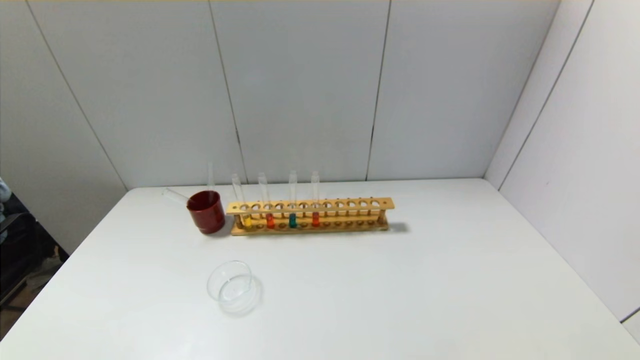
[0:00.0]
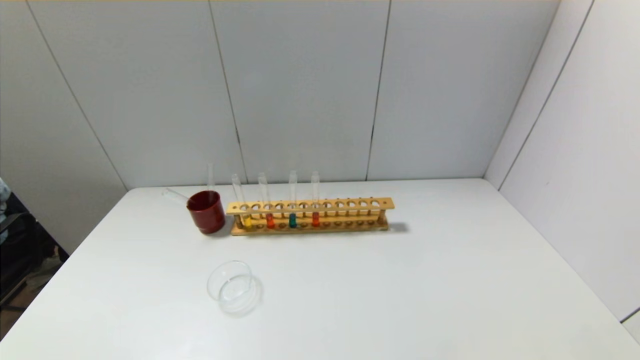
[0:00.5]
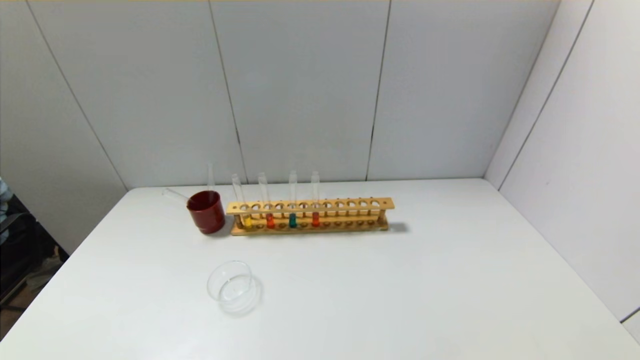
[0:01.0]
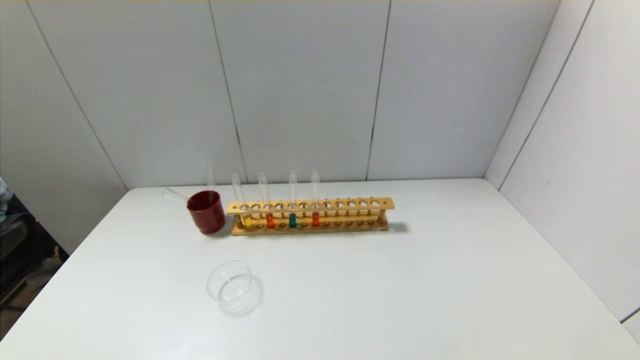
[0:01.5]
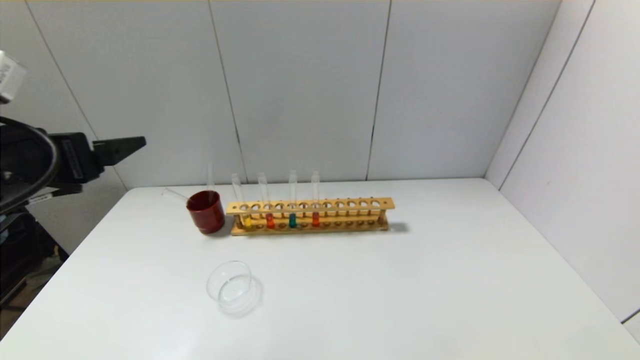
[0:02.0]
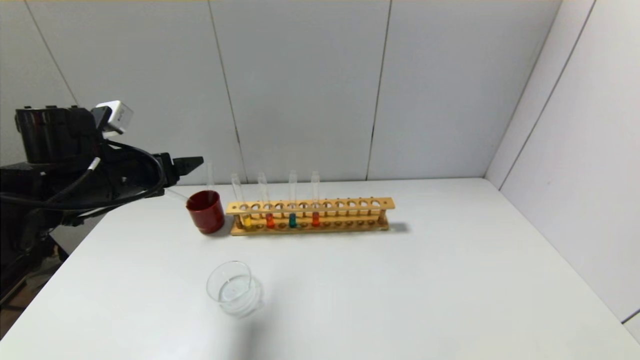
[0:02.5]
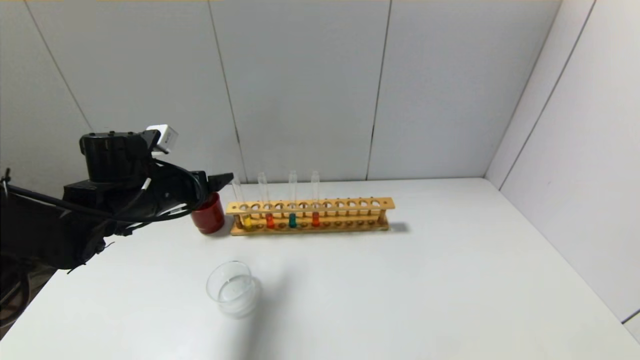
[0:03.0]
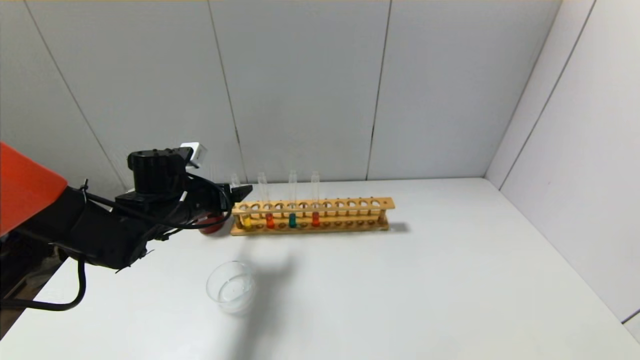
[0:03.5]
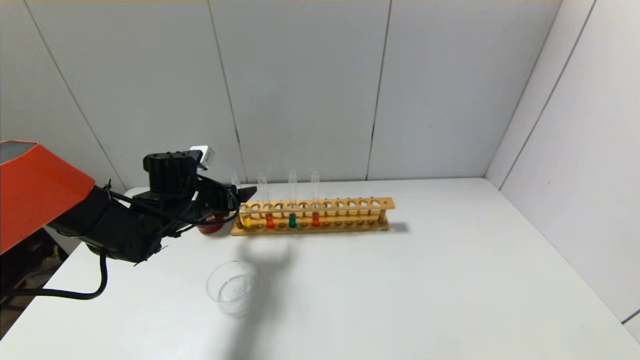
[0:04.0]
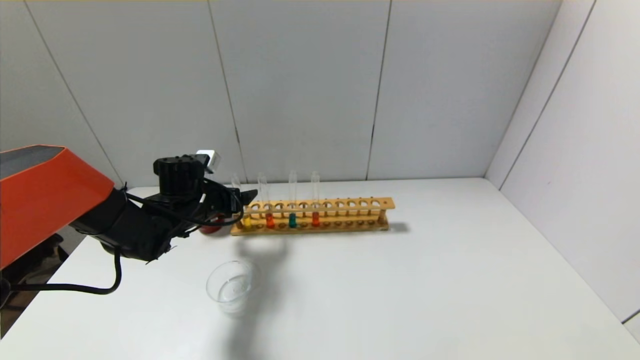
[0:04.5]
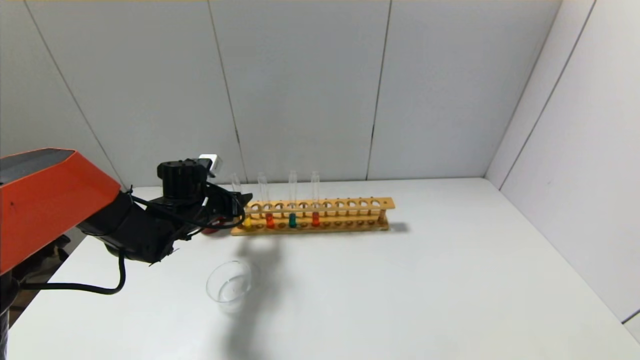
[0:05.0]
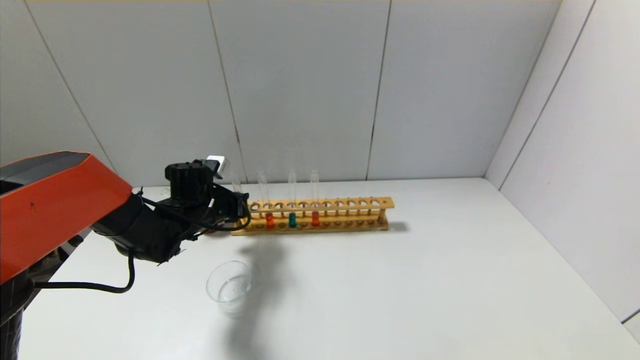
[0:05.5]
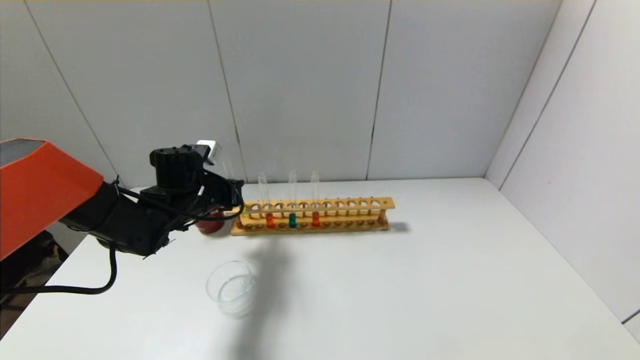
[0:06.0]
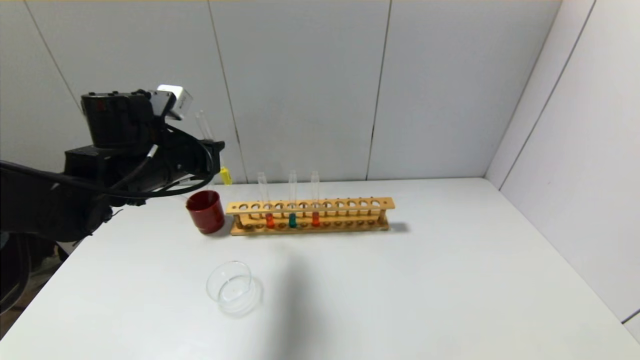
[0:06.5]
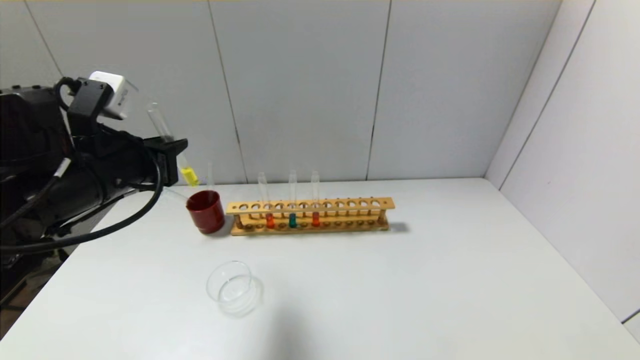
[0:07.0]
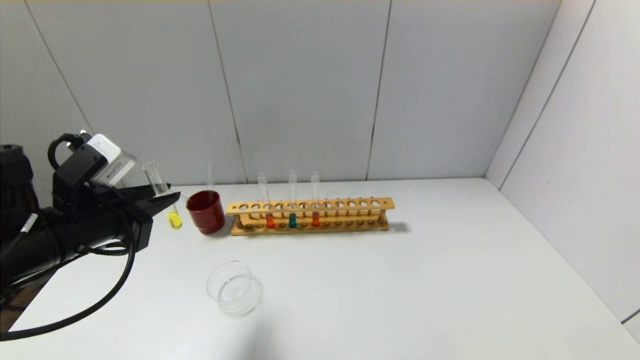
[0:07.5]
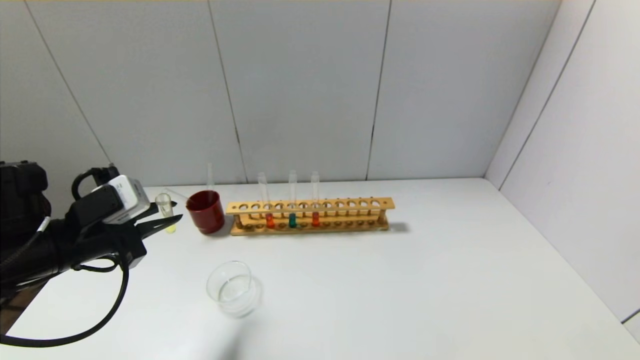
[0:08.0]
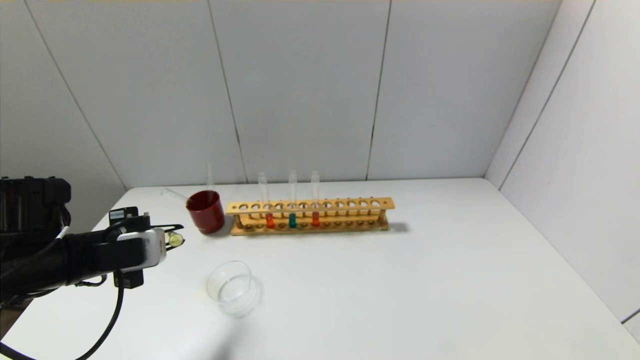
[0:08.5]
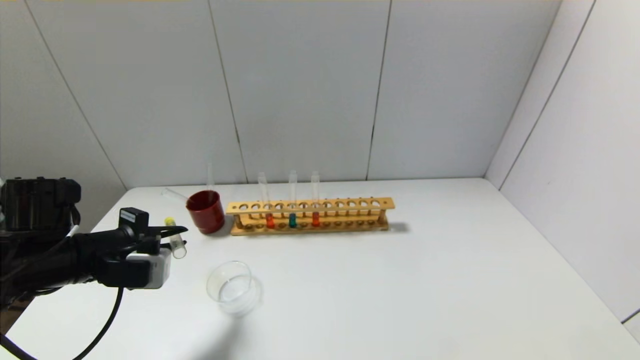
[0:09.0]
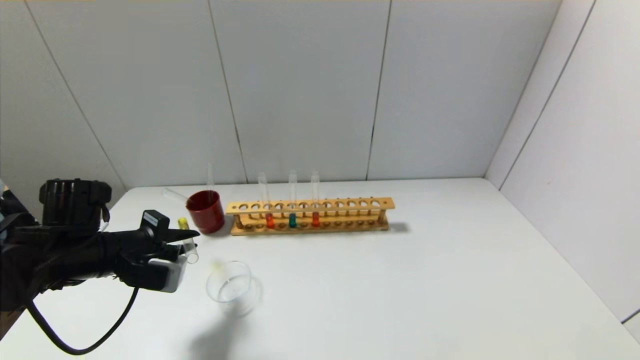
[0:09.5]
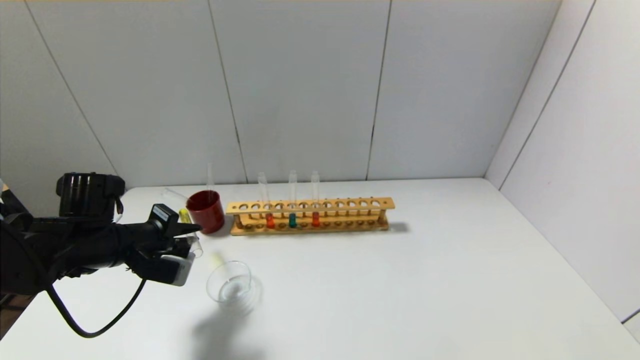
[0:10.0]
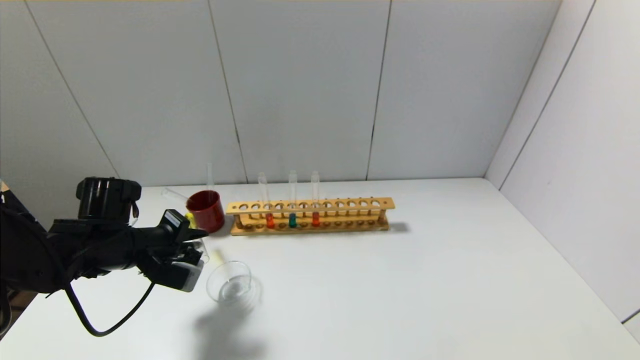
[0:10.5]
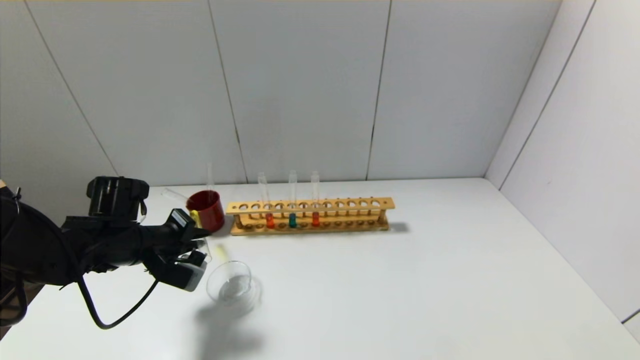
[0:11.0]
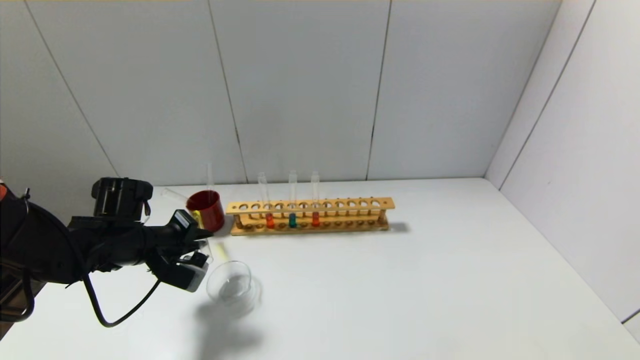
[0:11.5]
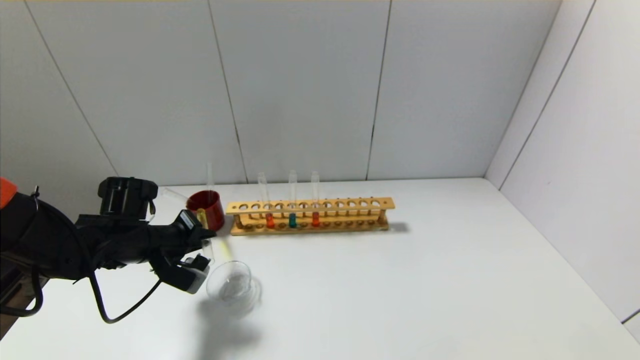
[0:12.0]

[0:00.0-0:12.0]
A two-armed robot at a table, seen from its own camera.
Step, 0.0 to 5.0 s: Grasp the yellow reagent with the left gripper.
0.0 to 2.0 s: The left gripper goes approximately 30 cm forward and upward.
2.0 to 4.0 s: The left gripper goes roughly 25 cm forward and downward.
4.0 to 6.0 s: The left gripper closes.
6.0 to 8.0 s: The left gripper moves backward and to the left, some 15 cm.
8.0 to 10.0 s: The left gripper travels forward and downward by about 5 cm.
10.0 to 12.0 s: There are only small adjustments of the grippers.

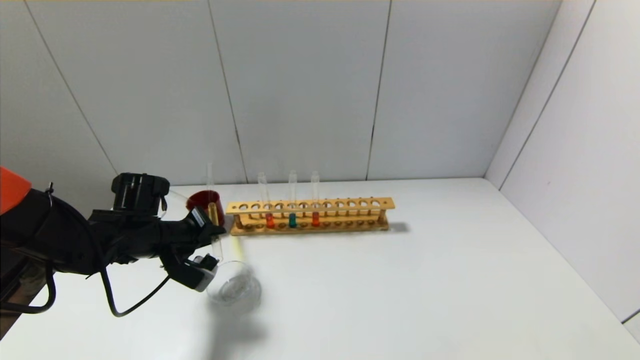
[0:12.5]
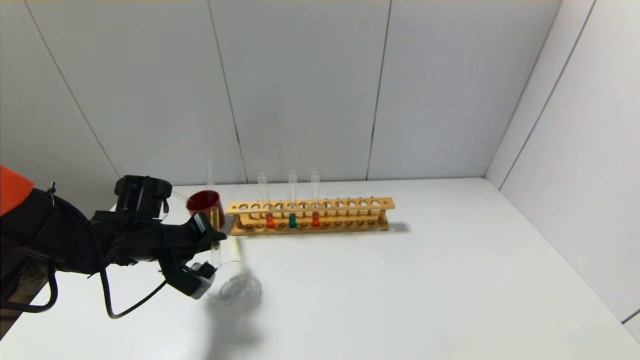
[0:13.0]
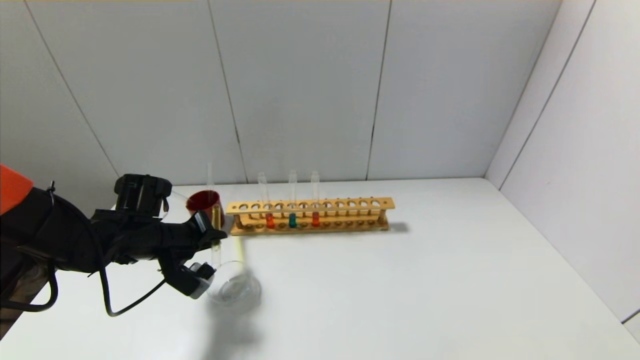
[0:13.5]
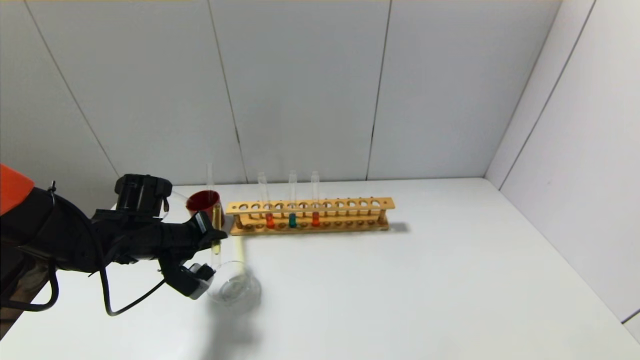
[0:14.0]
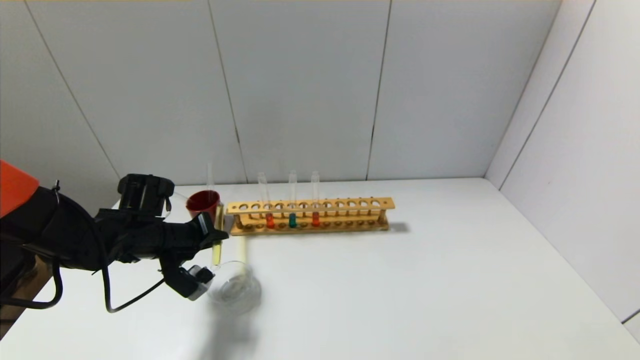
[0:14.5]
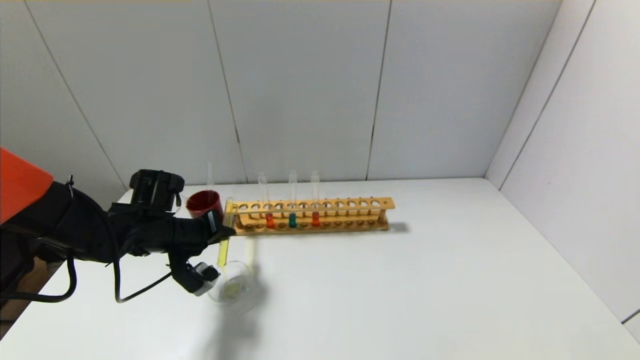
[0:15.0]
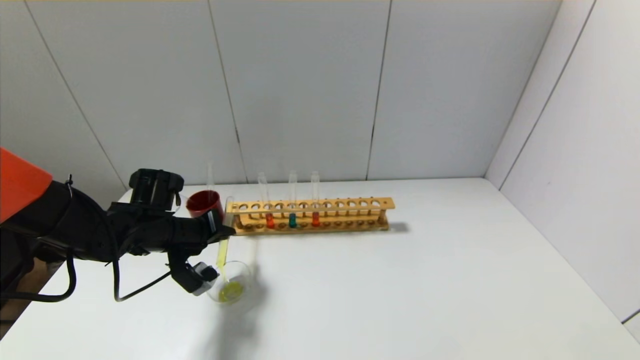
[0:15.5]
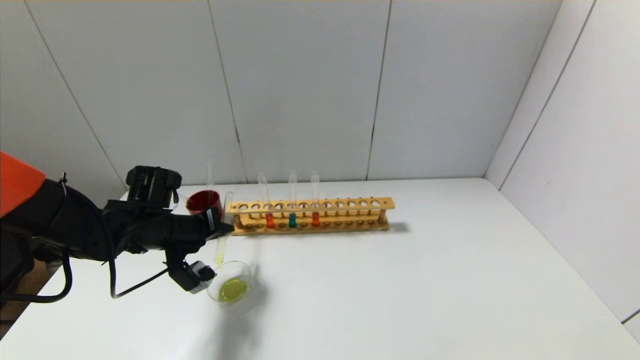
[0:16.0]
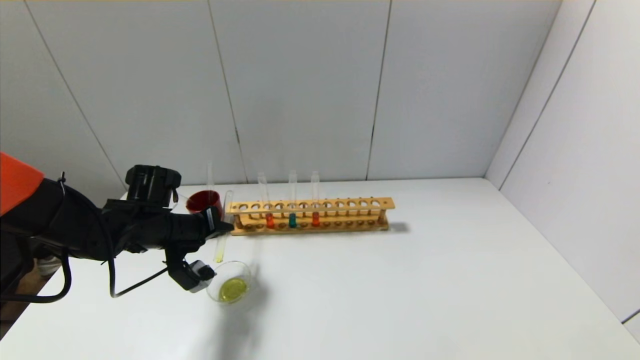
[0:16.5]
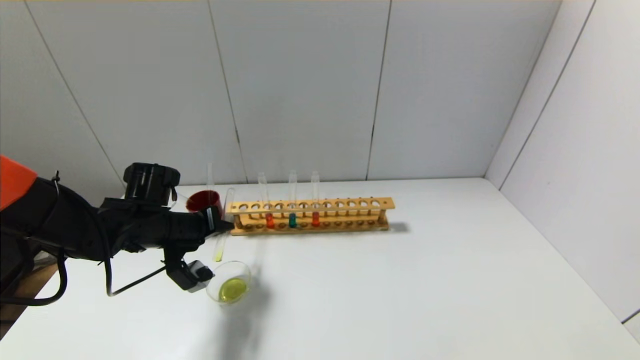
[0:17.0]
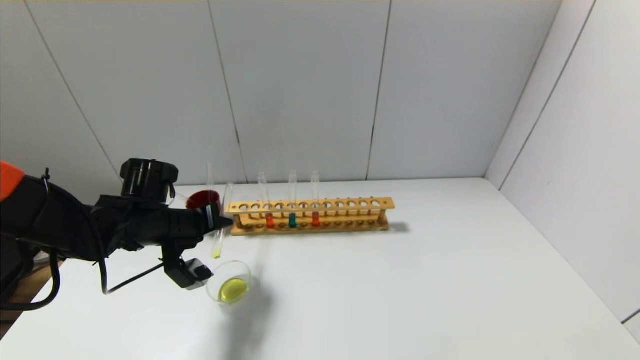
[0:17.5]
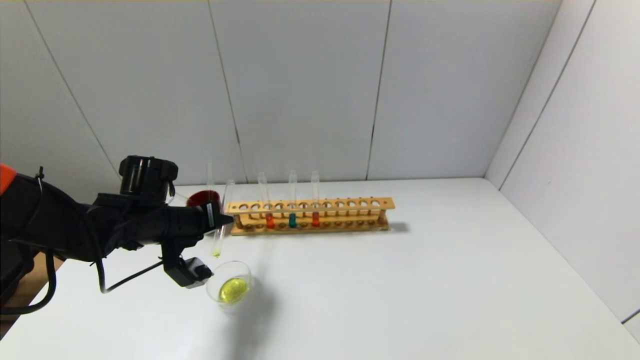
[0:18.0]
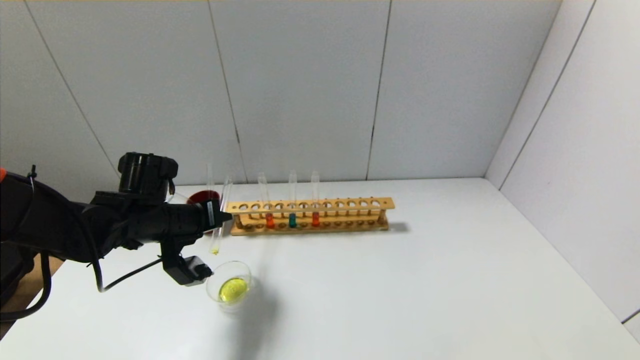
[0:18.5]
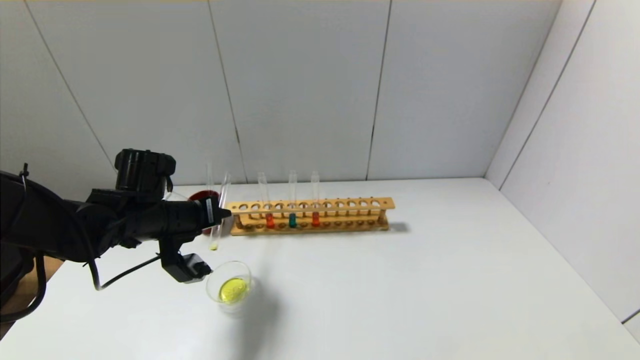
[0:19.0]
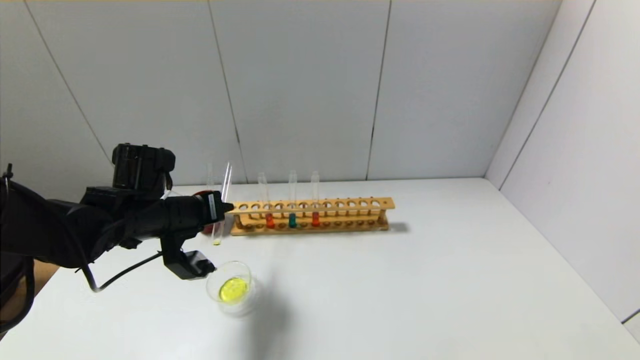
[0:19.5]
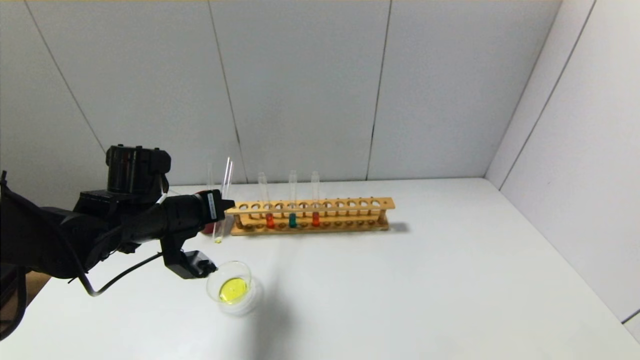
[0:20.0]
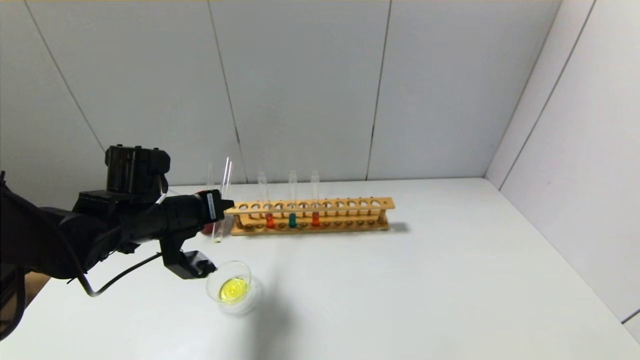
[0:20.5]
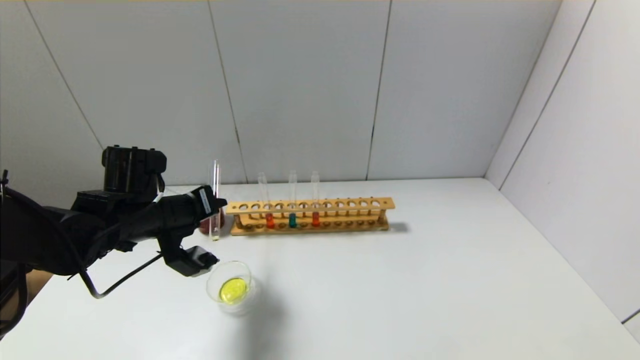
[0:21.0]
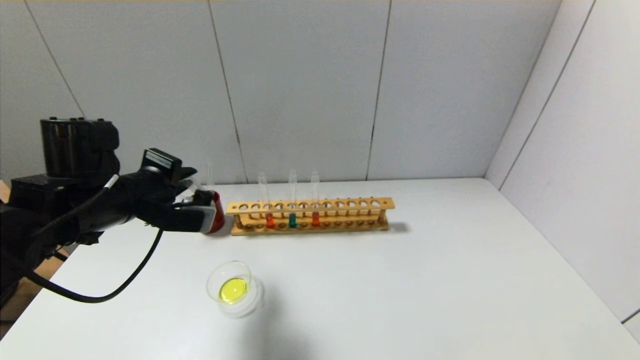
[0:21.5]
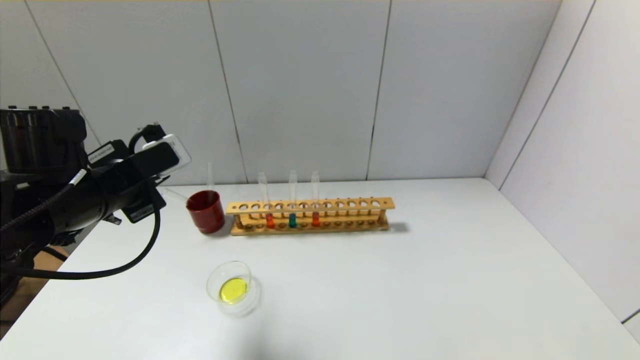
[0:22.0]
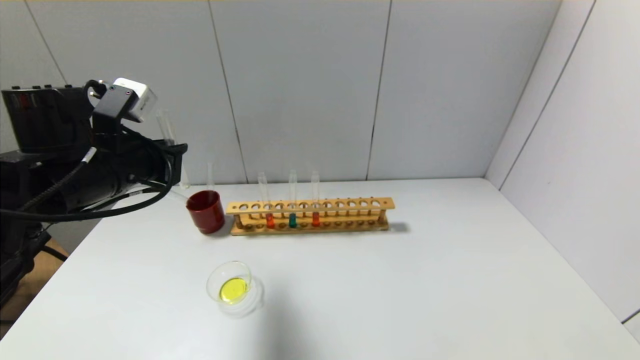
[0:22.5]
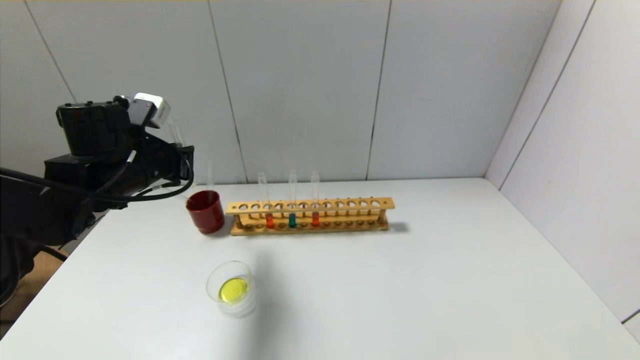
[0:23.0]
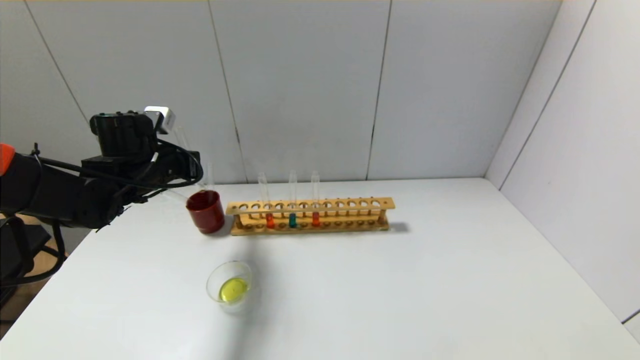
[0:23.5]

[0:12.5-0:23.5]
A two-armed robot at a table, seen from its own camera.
Step, 12.5 to 21.0 s: Pour the yellow reagent into the graduated cylinder with the left gripper.
12.5 to 14.5 s: The grippers move only a little.
14.5 to 18.0 s: The grippers move only a little.
18.0 to 20.0 s: The grippers make only small movements.
20.0 to 21.5 s: The left gripper goes some 5 cm upward.
21.5 to 23.5 s: The left gripper moves forward, approximately 10 cm.
